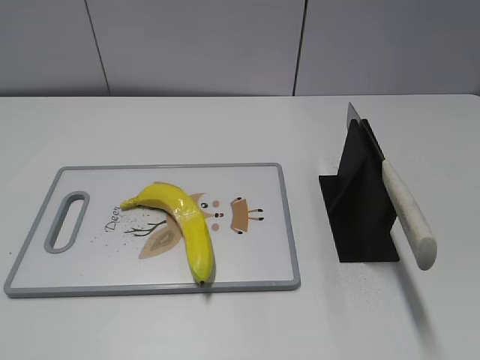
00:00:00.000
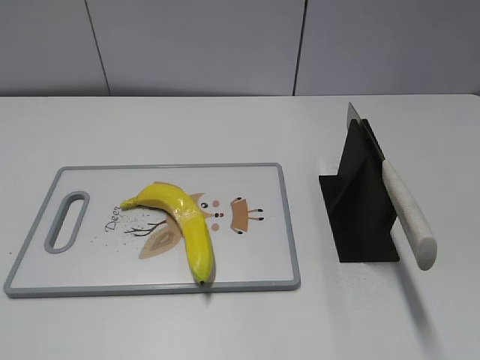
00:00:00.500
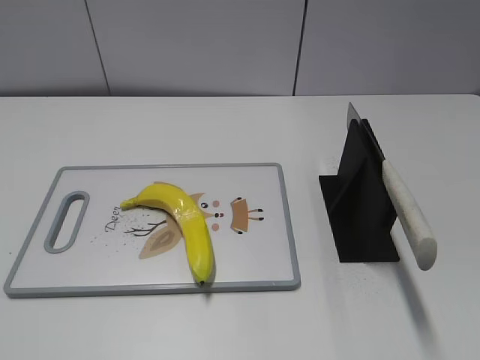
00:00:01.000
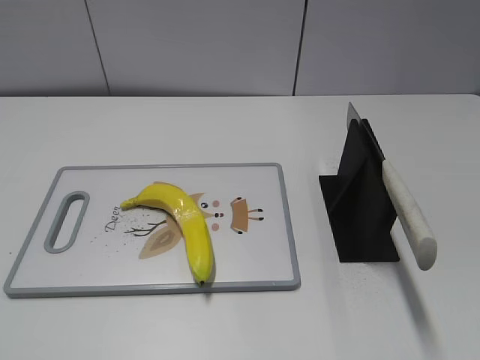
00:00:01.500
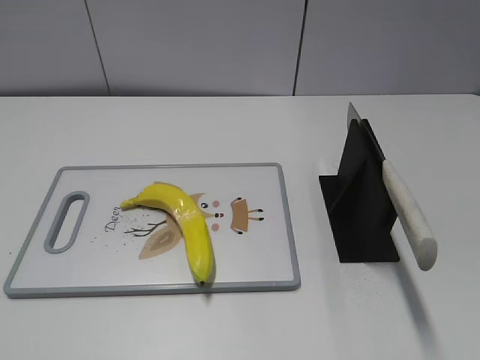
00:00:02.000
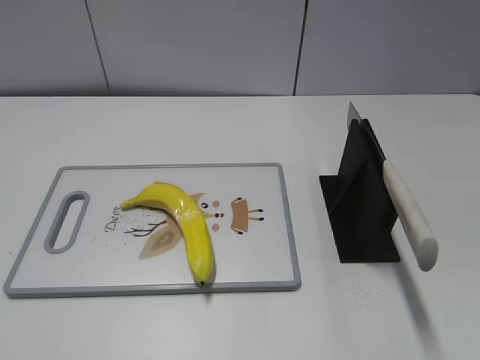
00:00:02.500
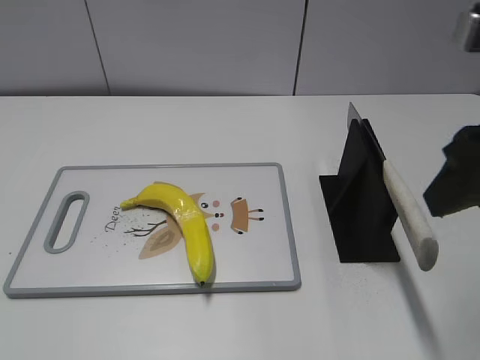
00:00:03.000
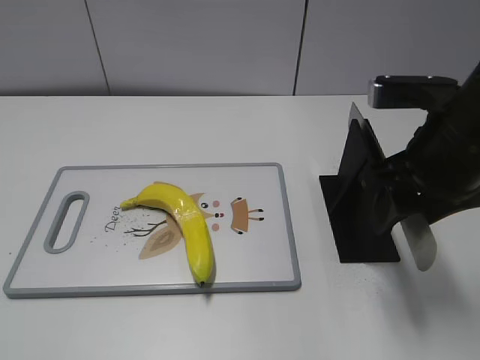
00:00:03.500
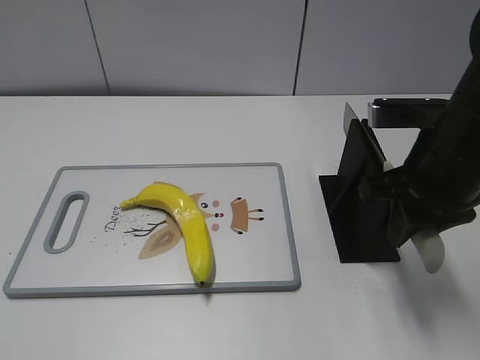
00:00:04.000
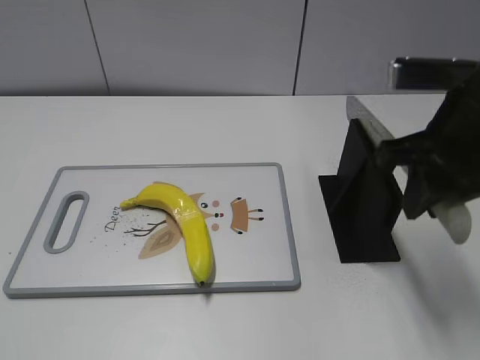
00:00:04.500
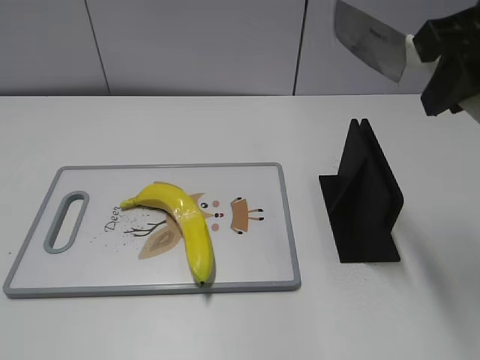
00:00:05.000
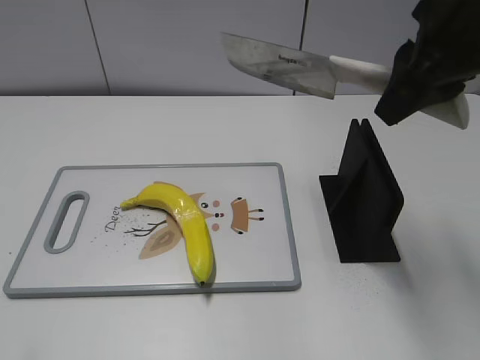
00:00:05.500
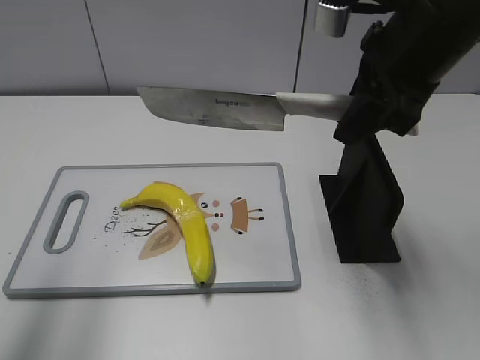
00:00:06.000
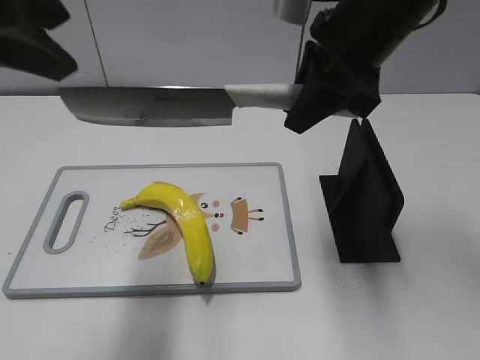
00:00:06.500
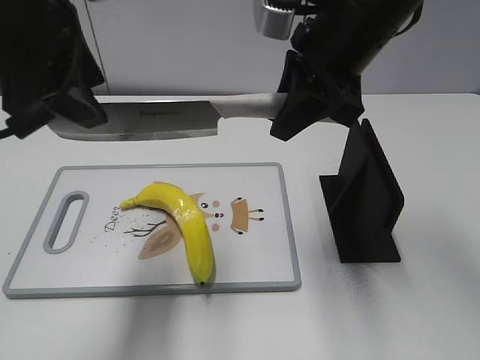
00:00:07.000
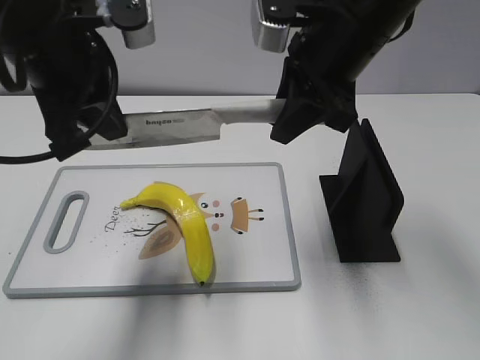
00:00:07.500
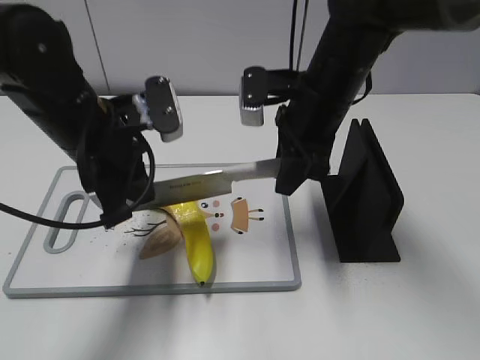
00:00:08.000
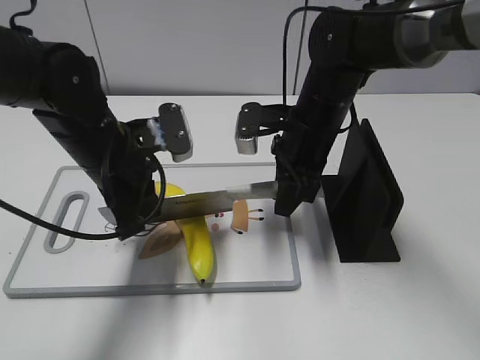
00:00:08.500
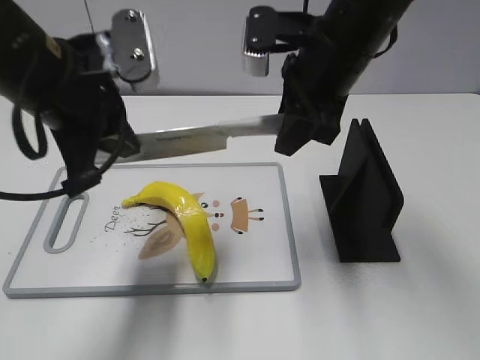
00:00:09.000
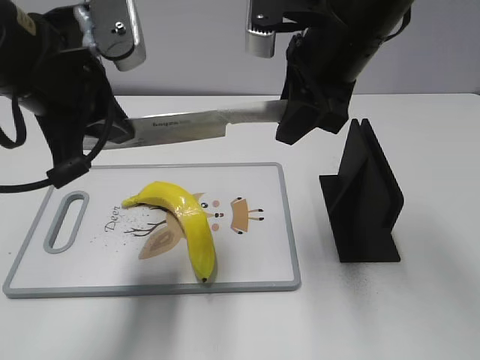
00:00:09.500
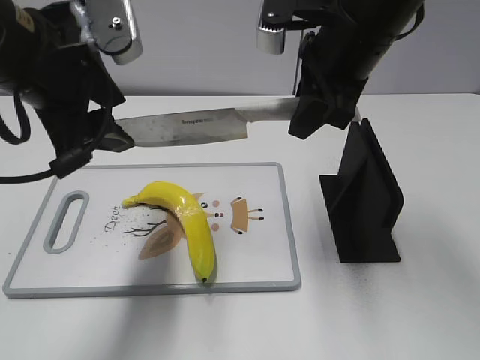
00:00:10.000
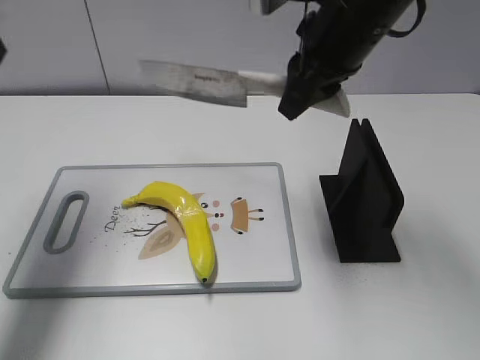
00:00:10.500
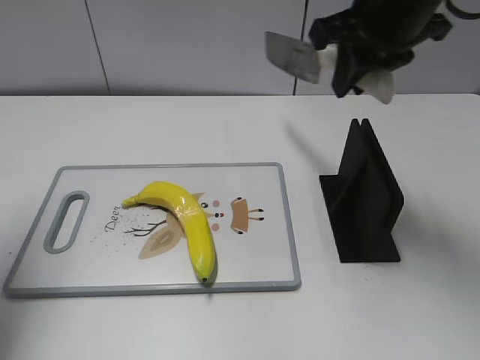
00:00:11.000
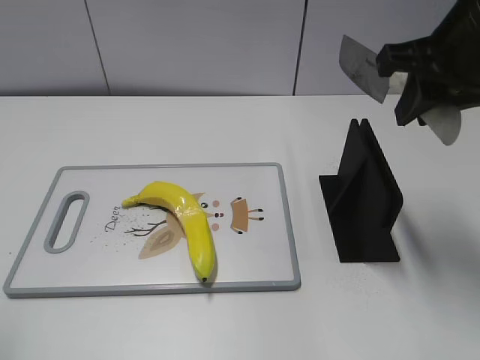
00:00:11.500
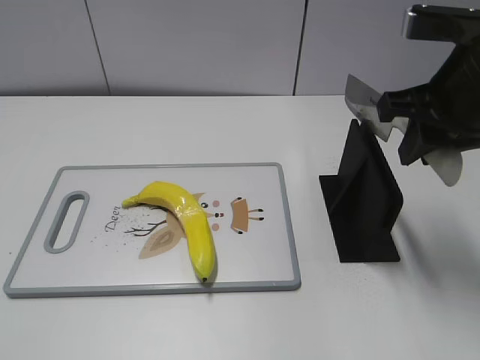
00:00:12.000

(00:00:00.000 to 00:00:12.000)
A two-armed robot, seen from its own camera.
Task of the whole recording: cut plastic banana.
Step, 00:00:00.000 - 00:00:05.000: Grab the knife handle with your right hand.
Step, 00:00:05.500 - 00:00:09.000: Lift the knife with your right hand.
Step, 00:00:09.500 - 00:00:10.000: Cut the banana with your right hand.
00:00:02.000 - 00:00:04.000: The right gripper goes about 25 cm forward, to the left and downward, and closes up.
00:00:04.000 - 00:00:06.000: The left gripper moves forward and upward, approximately 20 cm, while the right gripper goes some 10 cm upward.
00:00:06.000 - 00:00:08.000: The right gripper is displaced downward, forward and to the left by approximately 15 cm, while the left gripper shifts about 30 cm downward, to the right and forward, and closes its fingers.
00:00:08.000 - 00:00:10.000: The grippers both shift upward by approximately 10 cm. The left gripper opens.
00:00:10.000 - 00:00:12.000: The left gripper heads backward and to the left, covering about 30 cm, while the right gripper goes some 10 cm to the right and backward.

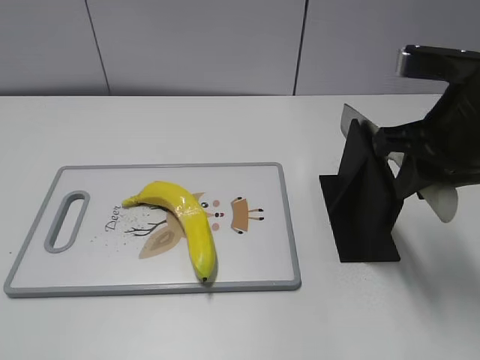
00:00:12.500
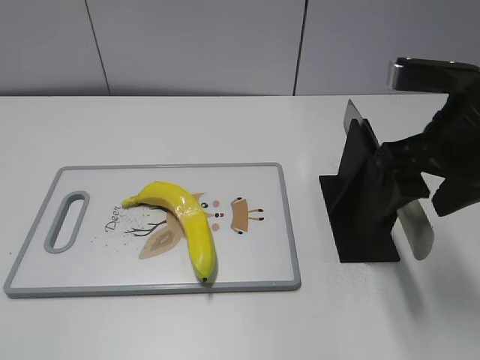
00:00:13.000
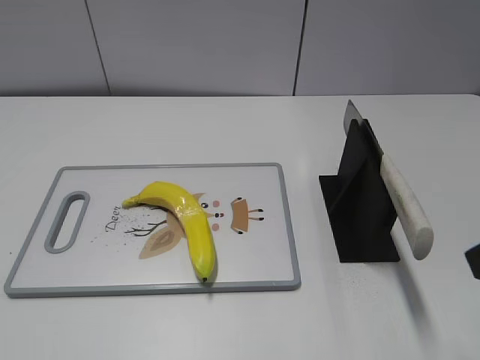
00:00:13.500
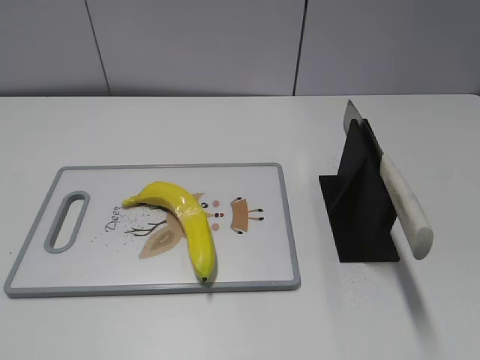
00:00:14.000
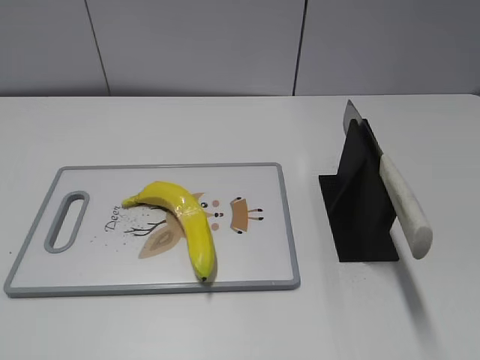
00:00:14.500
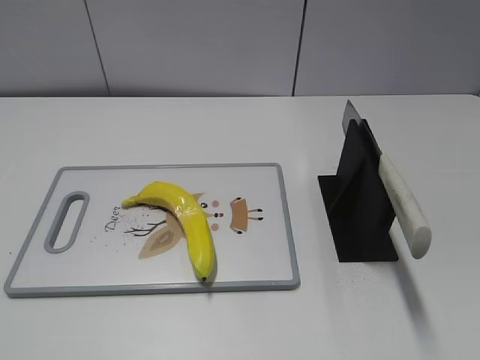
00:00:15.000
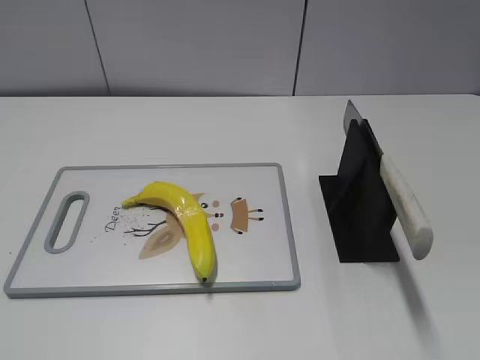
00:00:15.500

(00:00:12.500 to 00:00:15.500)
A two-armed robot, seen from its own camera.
Task of the whole recording: cut plastic banana.
Step, 00:00:12.500 - 00:00:15.500: Place the knife on the storage rack with your right hand.
00:00:12.500 - 00:00:14.000: The right gripper heads backward, covering about 20 cm, and opens its fingers.

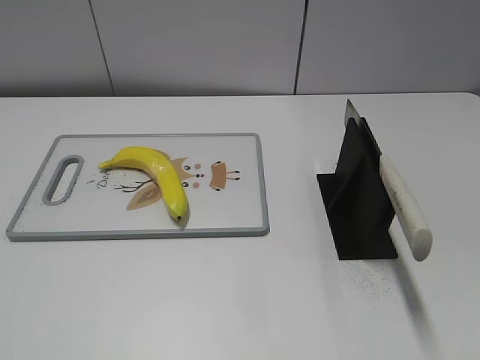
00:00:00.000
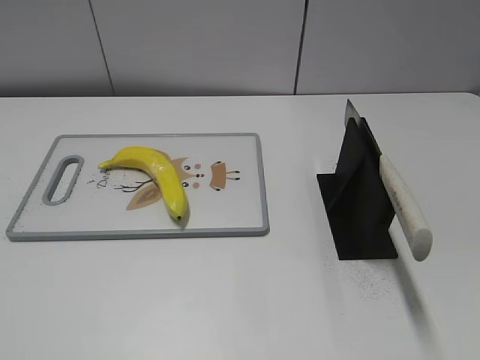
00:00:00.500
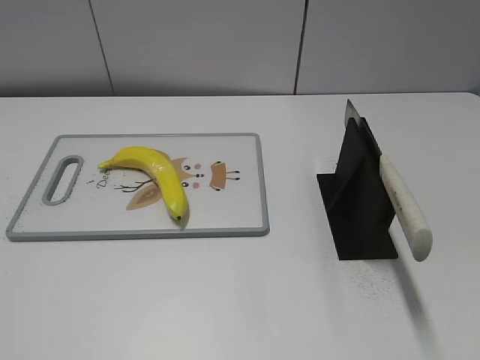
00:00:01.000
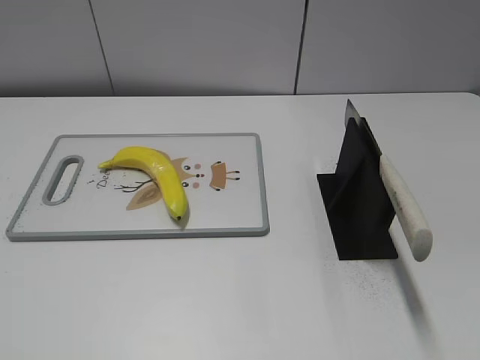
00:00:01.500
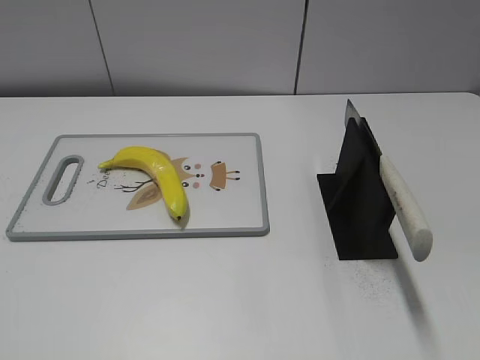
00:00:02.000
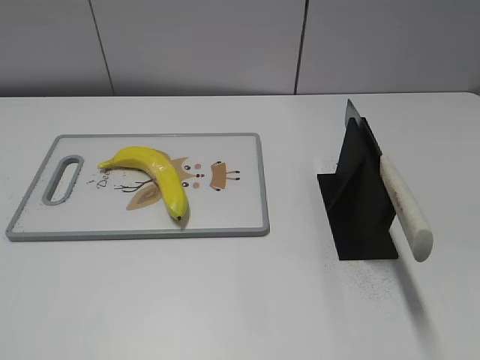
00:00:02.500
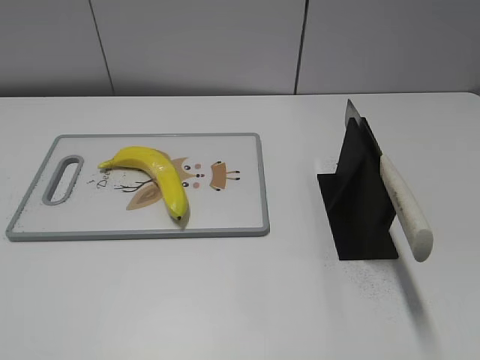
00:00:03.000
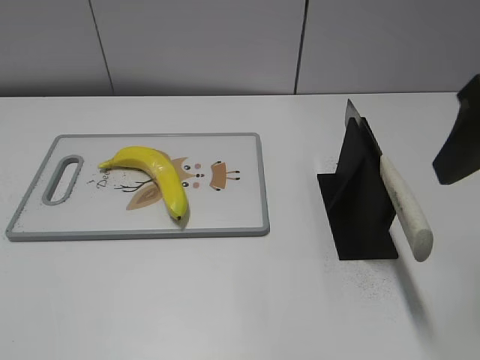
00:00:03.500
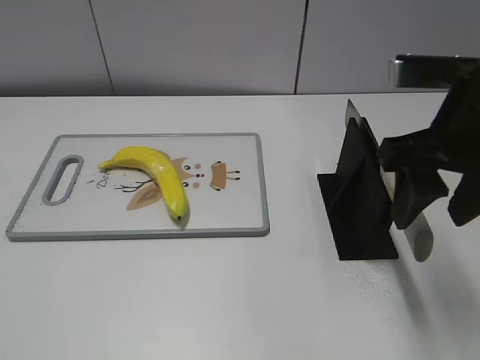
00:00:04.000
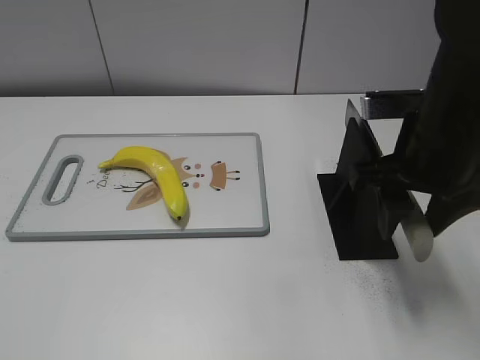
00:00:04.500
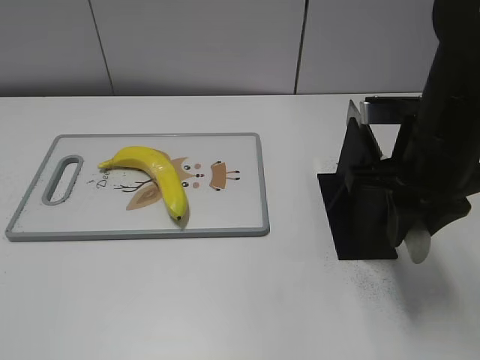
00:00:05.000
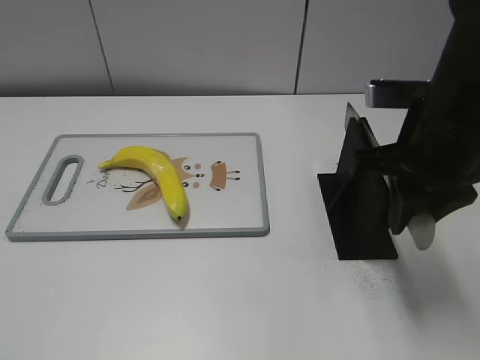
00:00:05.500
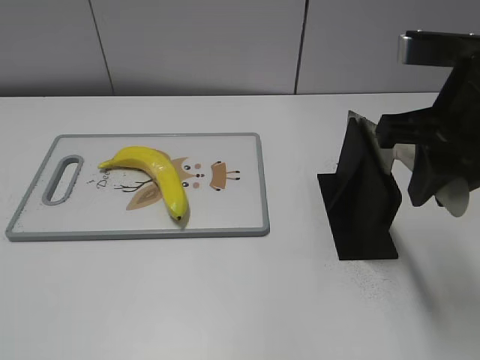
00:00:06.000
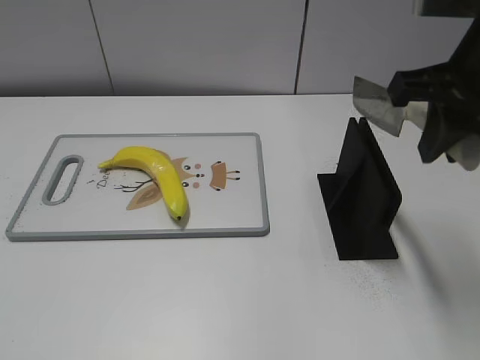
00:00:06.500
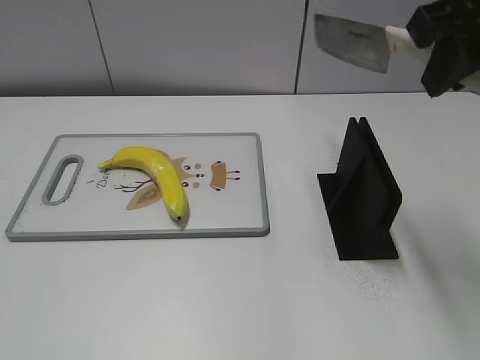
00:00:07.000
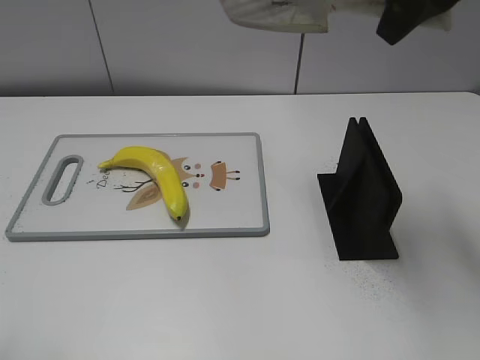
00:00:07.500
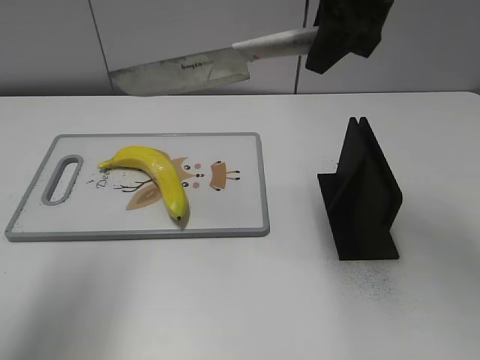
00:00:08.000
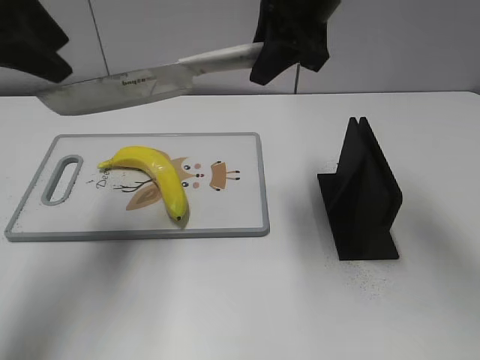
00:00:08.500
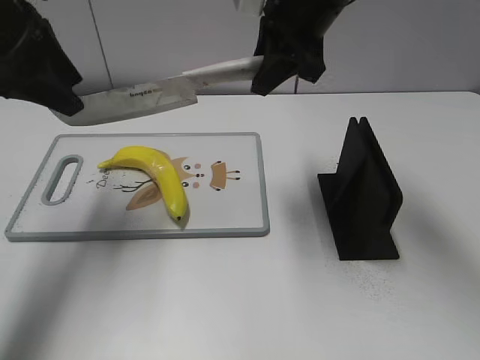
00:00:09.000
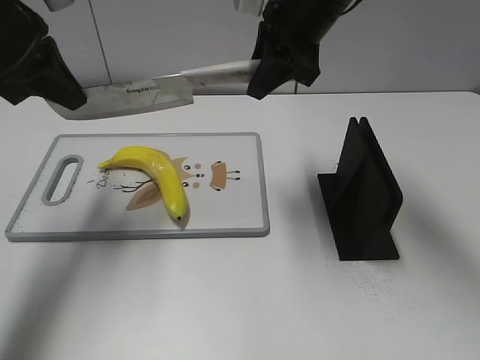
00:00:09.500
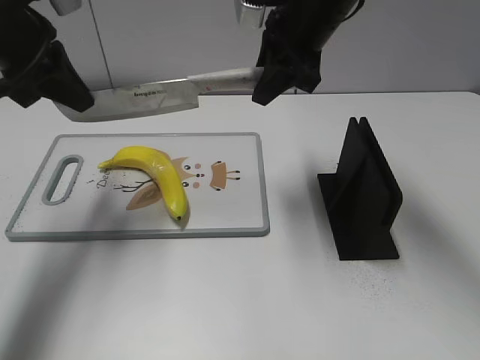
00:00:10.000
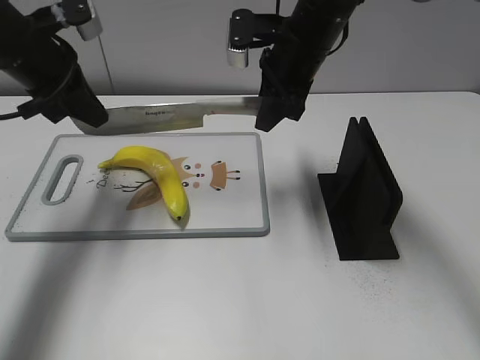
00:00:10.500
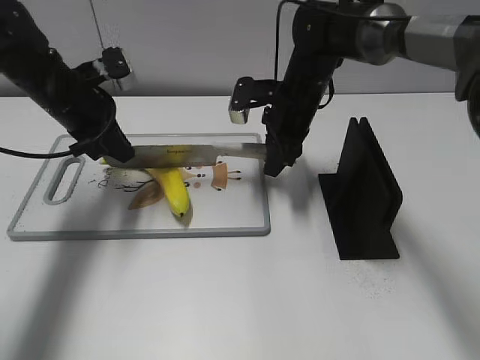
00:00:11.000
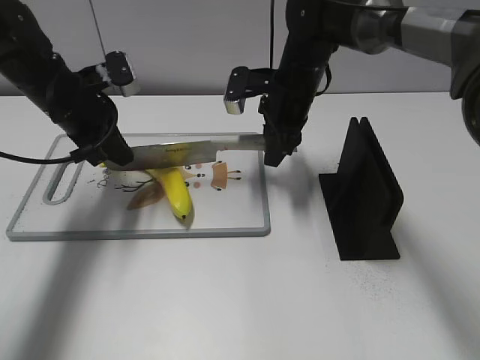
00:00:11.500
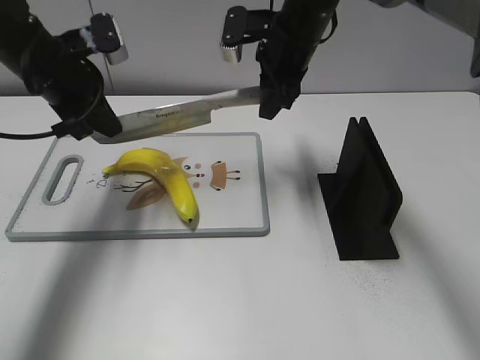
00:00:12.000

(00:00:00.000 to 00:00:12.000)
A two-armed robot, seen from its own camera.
Task of the whole recording: cut plastic banana.
Step, 00:00:00.000 - 00:00:06.000: Grab the knife handle with your right hand.
00:00:02.000 - 00:00:04.000: The right gripper moves forward and to the left, roughly 25 cm.
00:00:04.000 - 00:00:06.000: The right gripper closes its fingers.
00:00:06.000 - 00:00:08.000: The left gripper goes approximately 25 cm forward and upward. Meanwhile the right gripper travels forward, upward and to the left by roughly 15 cm.
00:00:08.000 - 00:00:10.000: The left gripper heads forward and downward, covering some 20 cm, and closes. Meanwhile the right gripper moves downward and forward, some 10 cm.
00:00:10.000 - 00:00:12.000: The left gripper heads downward, covering about 5 cm; the right gripper reaches some 15 cm downward, then returns.
